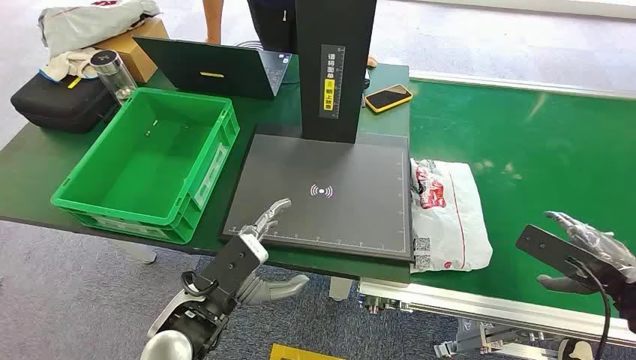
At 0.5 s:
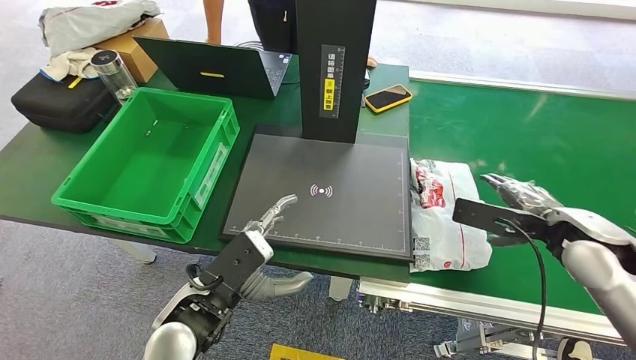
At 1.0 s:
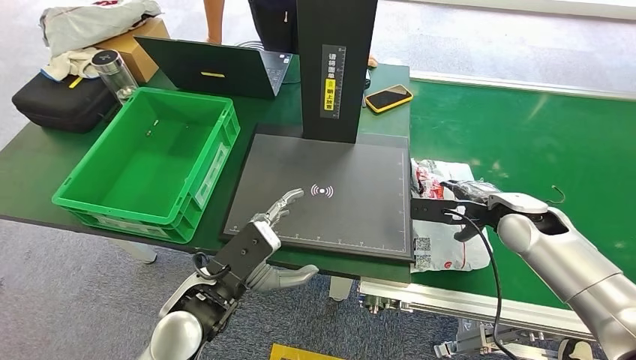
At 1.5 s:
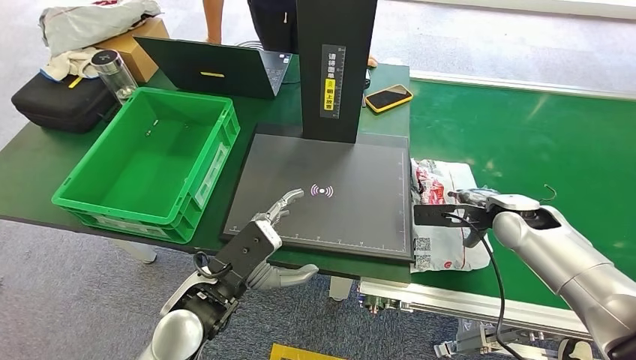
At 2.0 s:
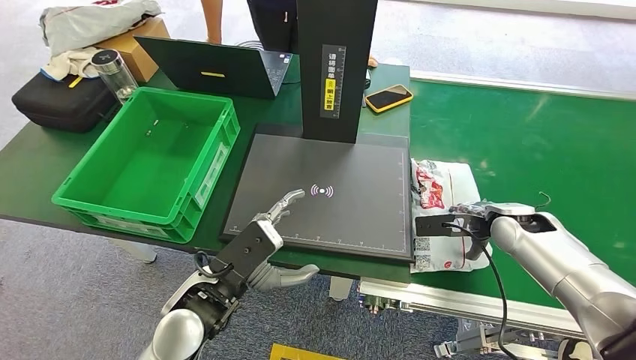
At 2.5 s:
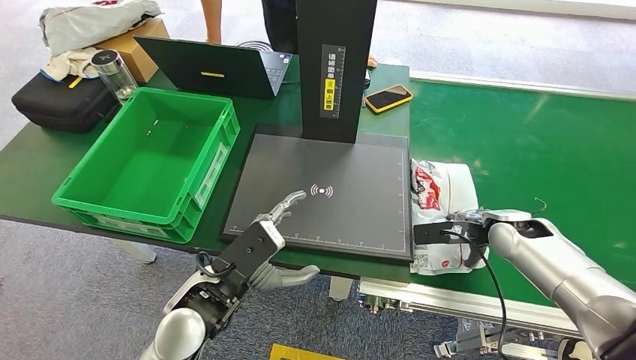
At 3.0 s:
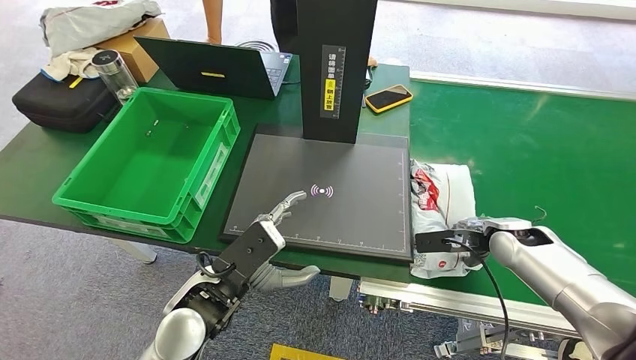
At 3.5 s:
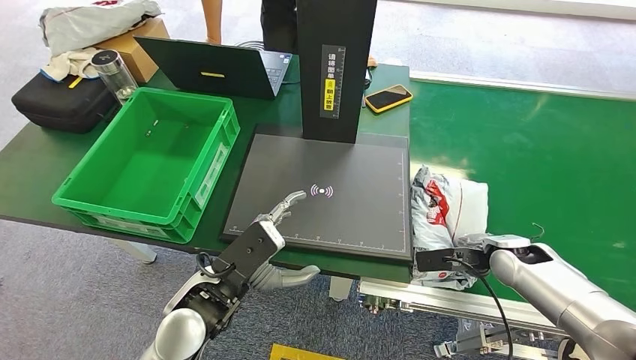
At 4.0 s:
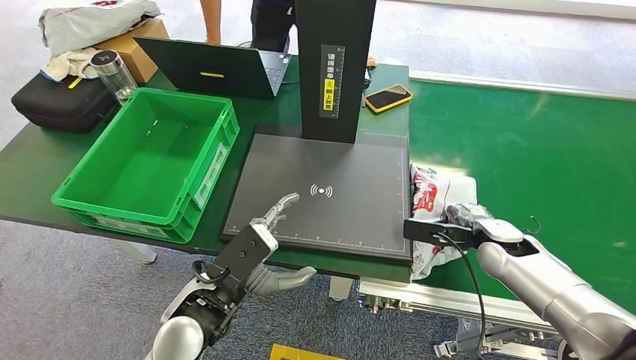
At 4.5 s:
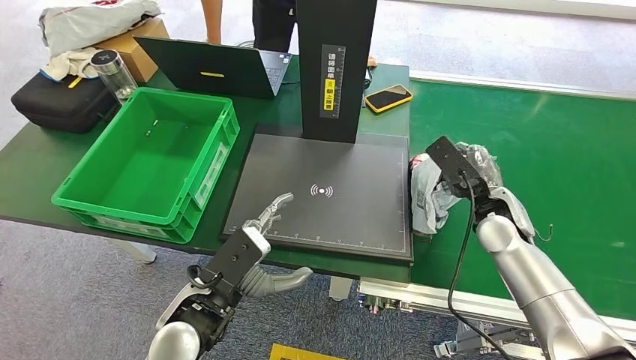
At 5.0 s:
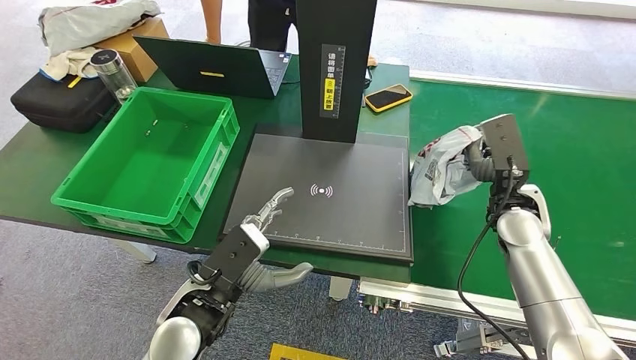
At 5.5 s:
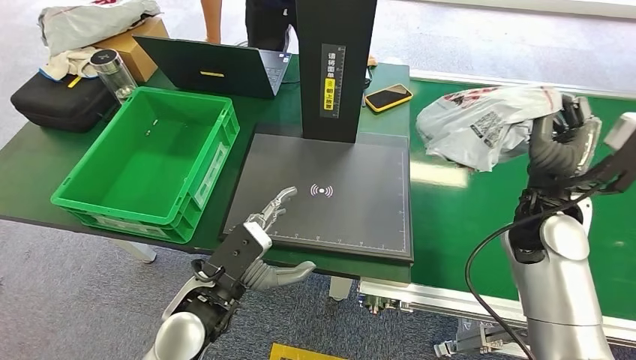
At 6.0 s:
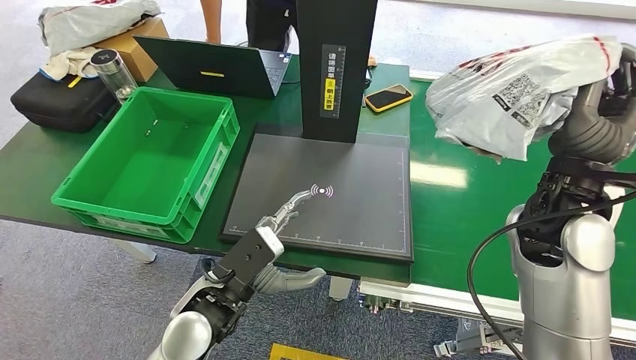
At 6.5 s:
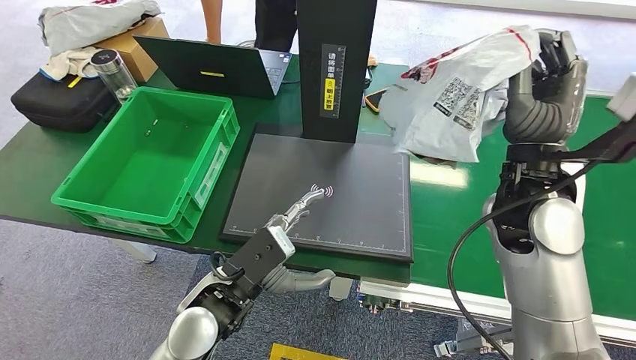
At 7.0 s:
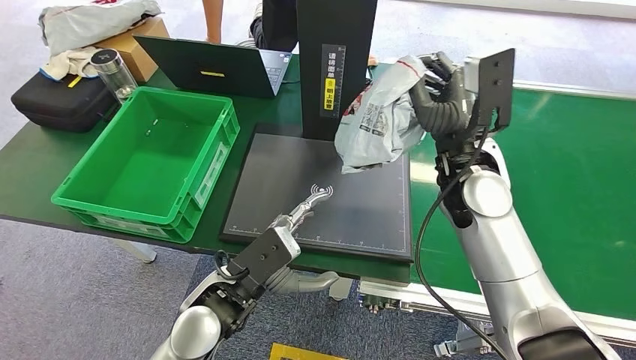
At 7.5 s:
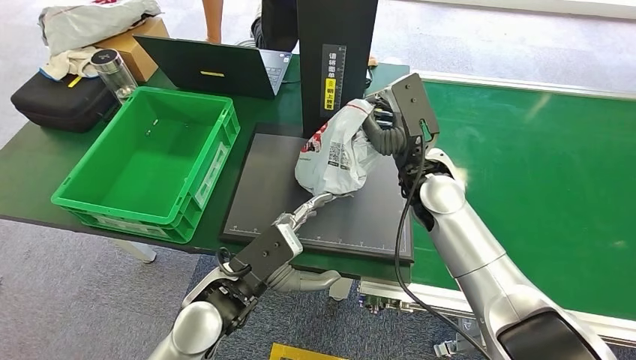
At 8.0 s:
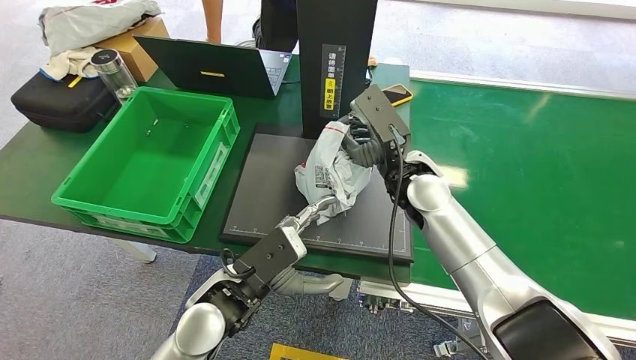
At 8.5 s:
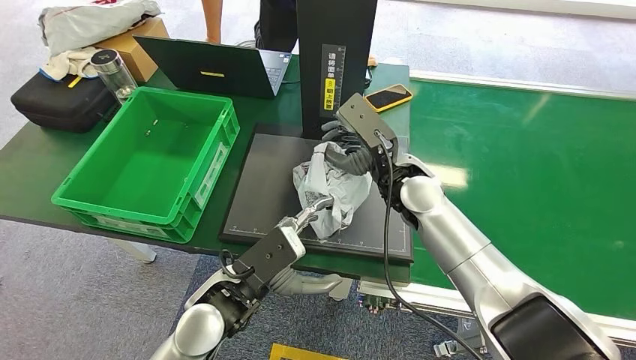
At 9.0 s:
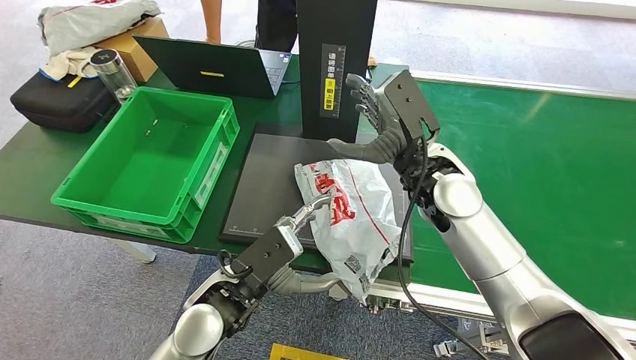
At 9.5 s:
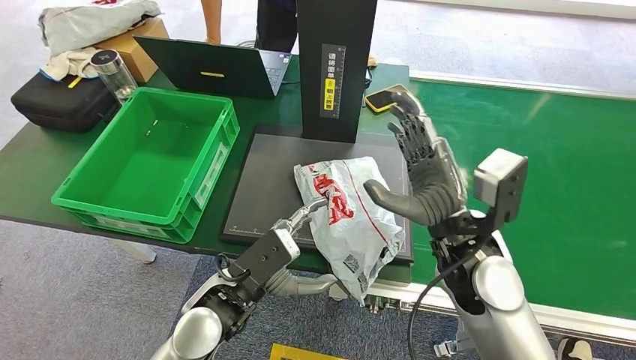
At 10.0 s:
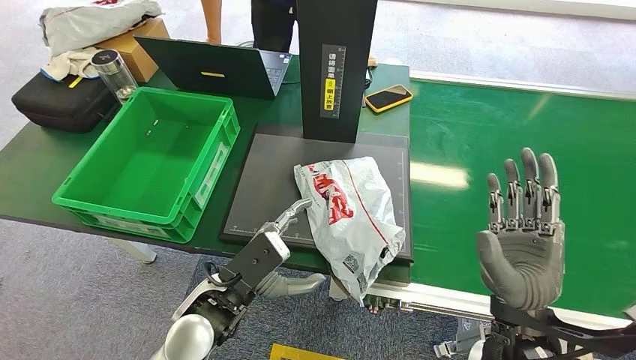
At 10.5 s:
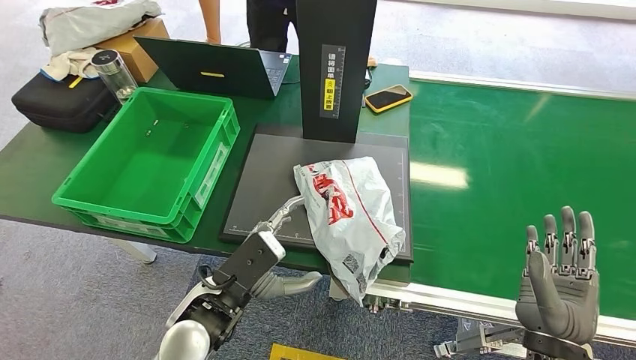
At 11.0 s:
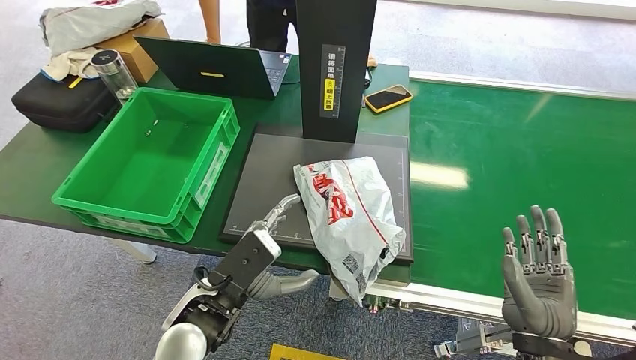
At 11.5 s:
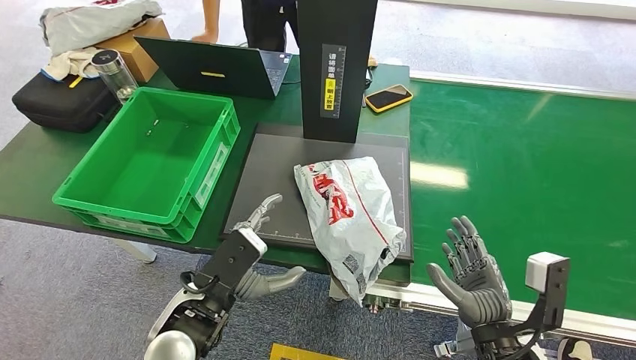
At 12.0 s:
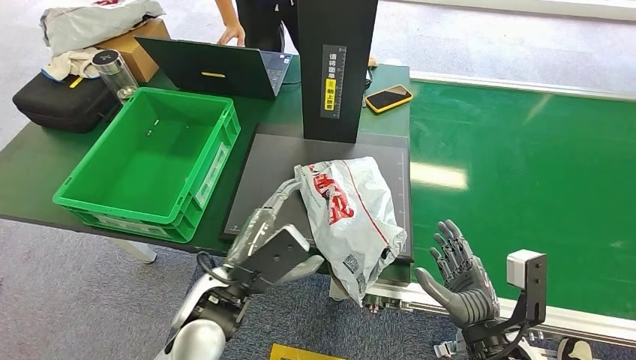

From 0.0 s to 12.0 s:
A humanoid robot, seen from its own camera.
Step, from 0.0 s to 5.0 s: Pick up the package from the conveyor belt.
Step, from 5.5 s to 9.0 s: Place the package onto the inbound machine.
From 2.0 s to 4.0 s: There are only small adjustments of the hands.
From 8.0 s to 10.0 s: The right hand heads backward, covering some 25 cm.
From 10.0 s to 12.0 s: The right hand shifts approximately 10 cm downward.

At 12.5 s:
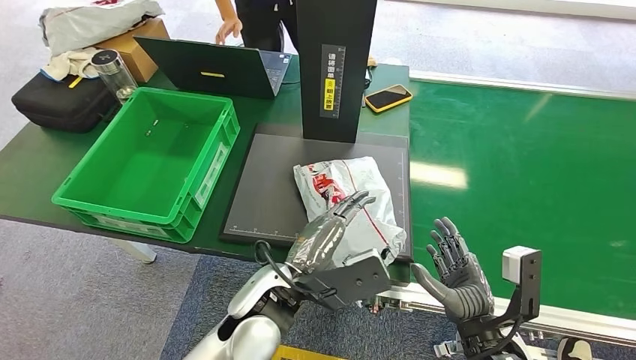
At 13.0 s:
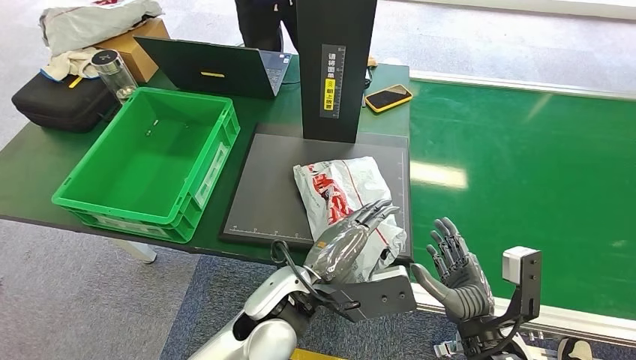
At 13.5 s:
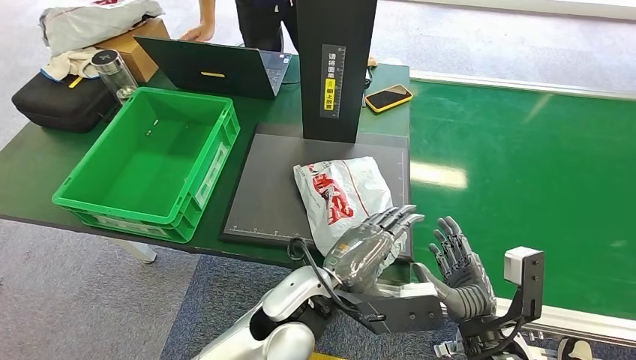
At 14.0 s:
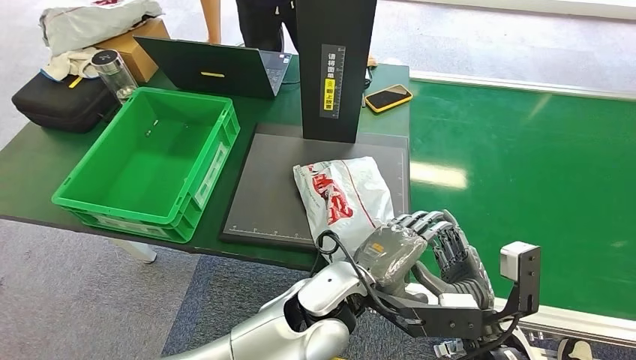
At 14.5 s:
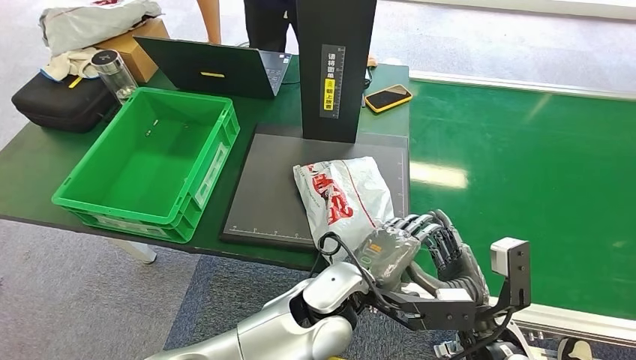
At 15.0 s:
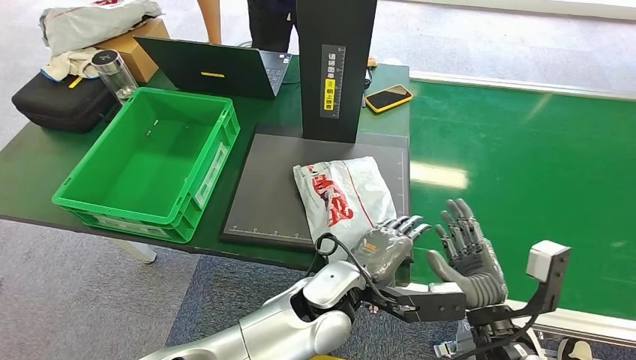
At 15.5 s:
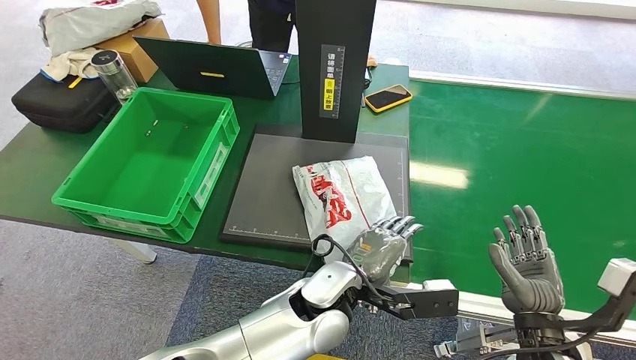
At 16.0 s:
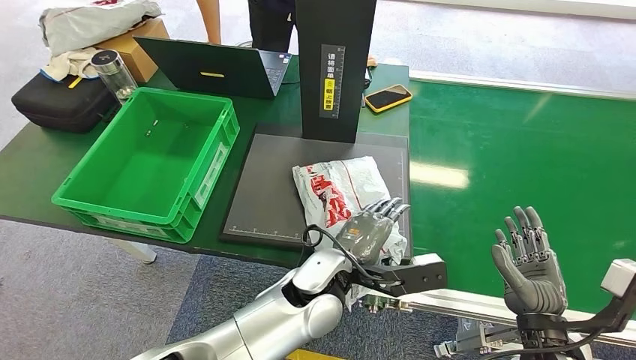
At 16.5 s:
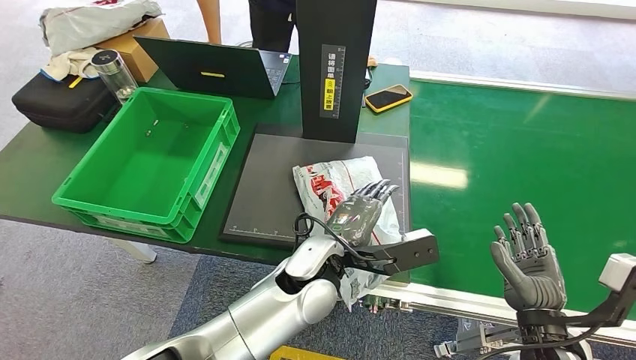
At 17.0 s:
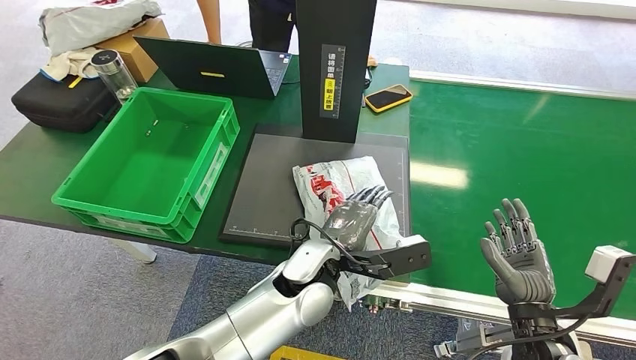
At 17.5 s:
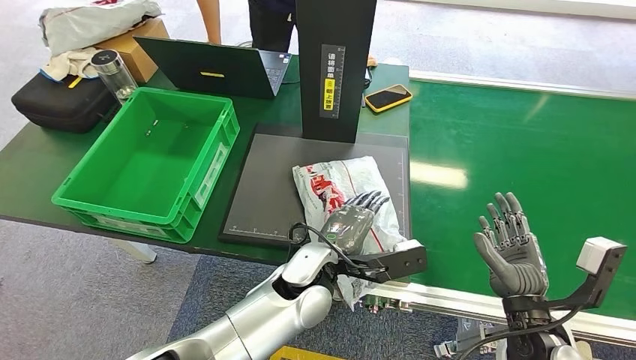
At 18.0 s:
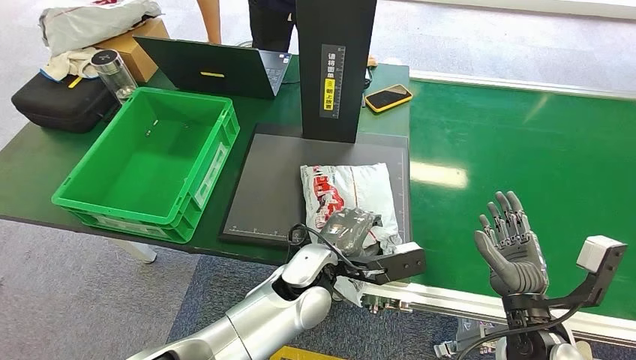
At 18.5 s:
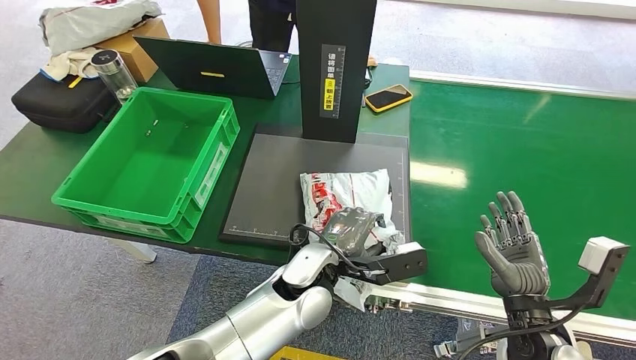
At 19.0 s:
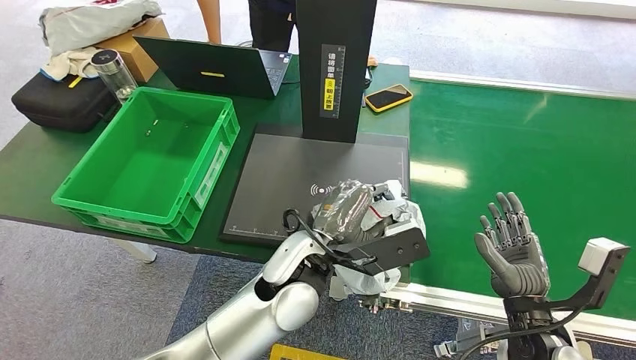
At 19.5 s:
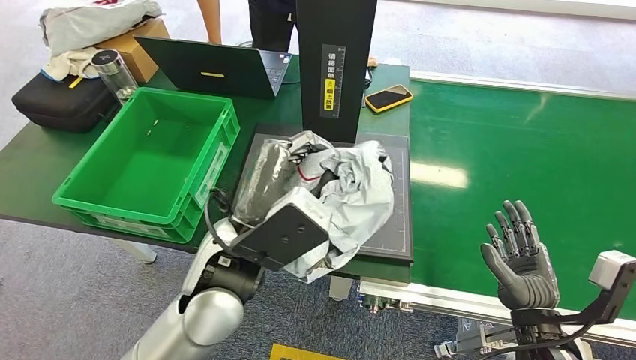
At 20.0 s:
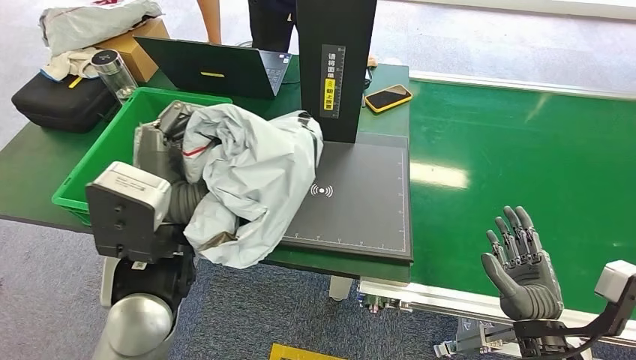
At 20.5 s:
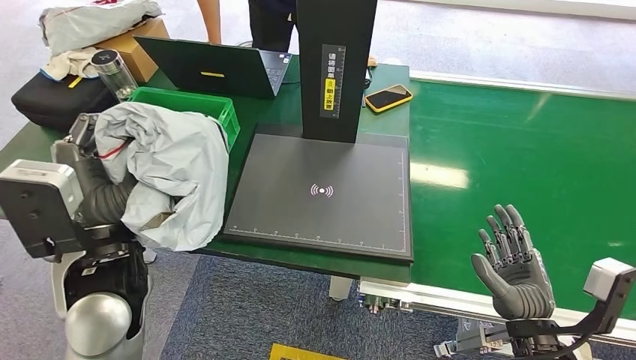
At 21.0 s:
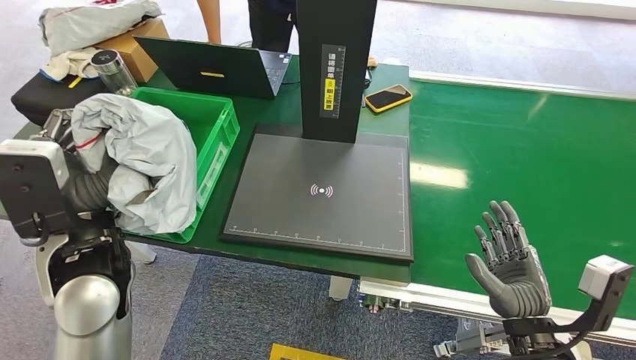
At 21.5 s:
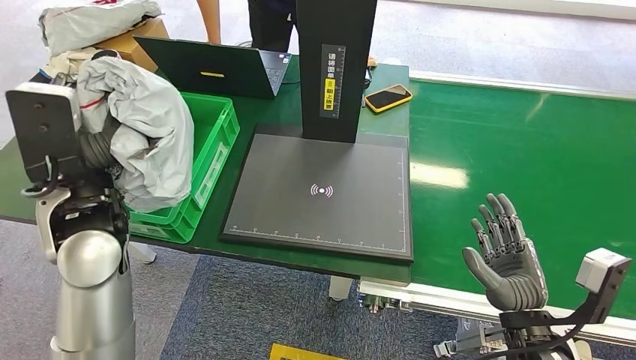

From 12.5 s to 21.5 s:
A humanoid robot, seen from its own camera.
Step, from 13.0 s to 20.0 s: Pick up the package from the inbound machine.
From 12.5 s to 14.5 s: The left hand shifts approximately 5 cm to the right.
From 14.5 s to 17.0 s: The right hand travels to the right by about 10 cm.
From 17.0 s to 19.5 s: The left hand heads upward, covering approximately 10 cm.
